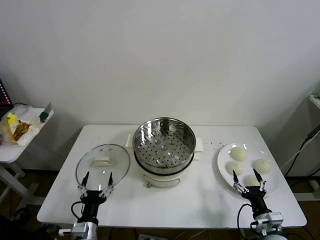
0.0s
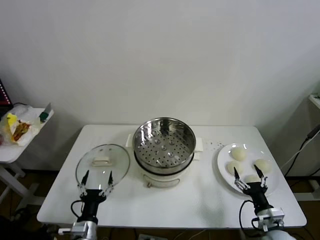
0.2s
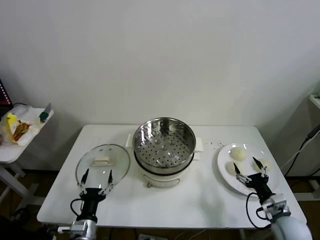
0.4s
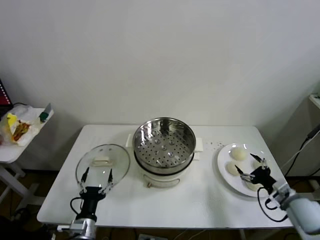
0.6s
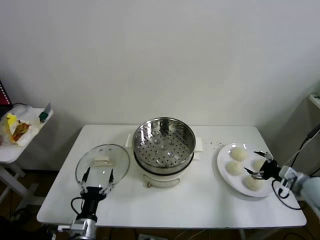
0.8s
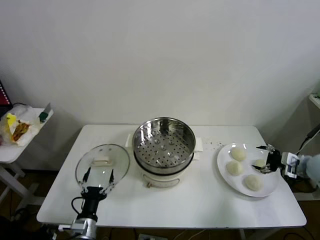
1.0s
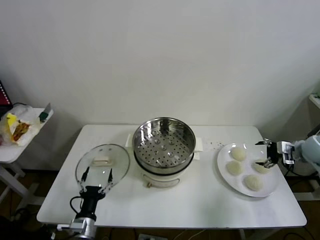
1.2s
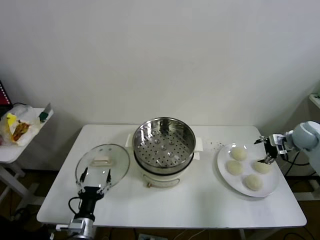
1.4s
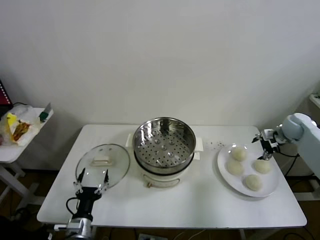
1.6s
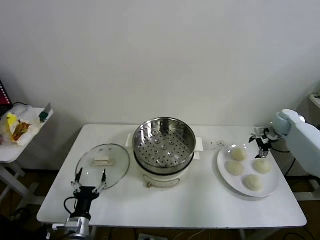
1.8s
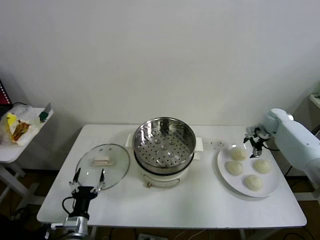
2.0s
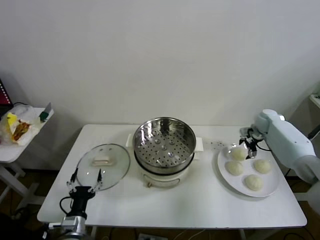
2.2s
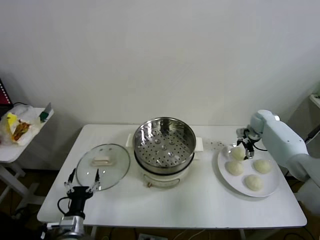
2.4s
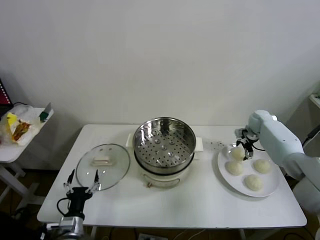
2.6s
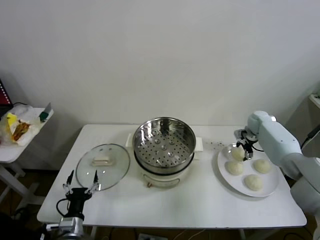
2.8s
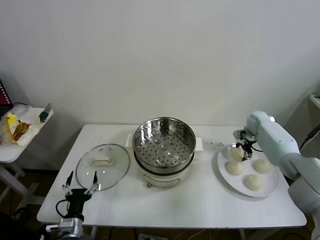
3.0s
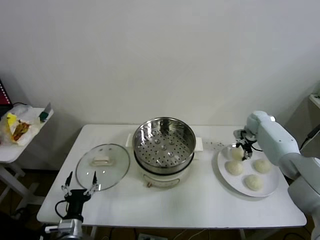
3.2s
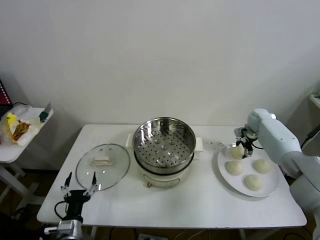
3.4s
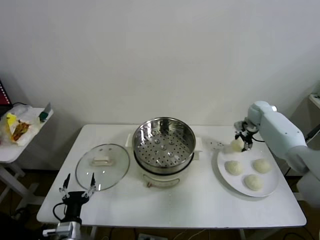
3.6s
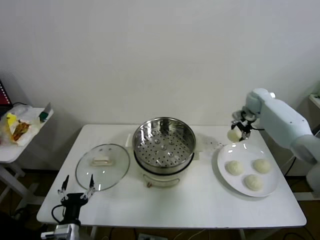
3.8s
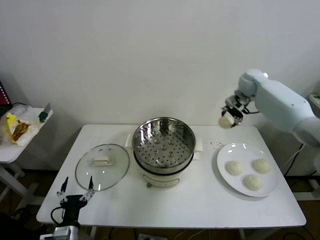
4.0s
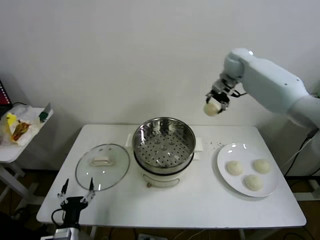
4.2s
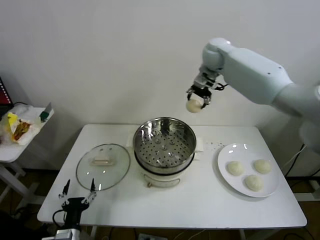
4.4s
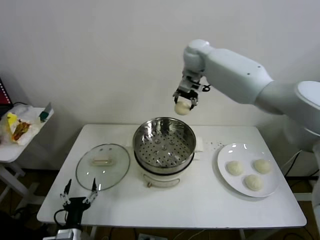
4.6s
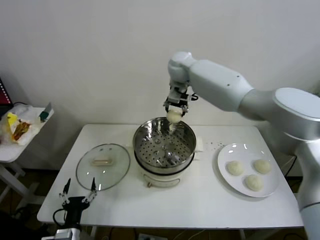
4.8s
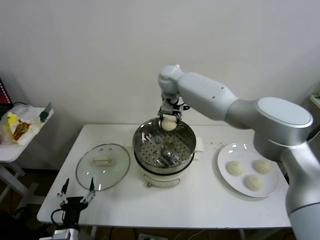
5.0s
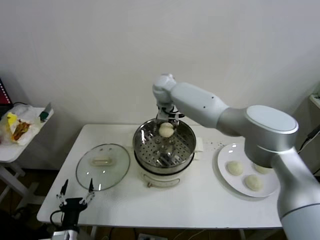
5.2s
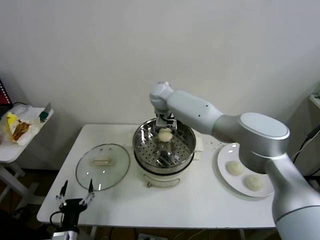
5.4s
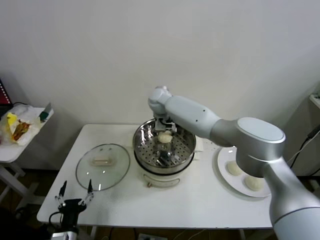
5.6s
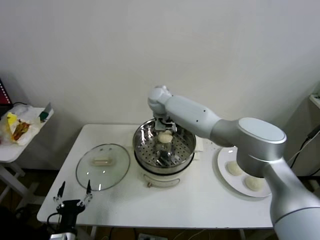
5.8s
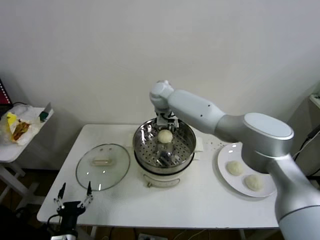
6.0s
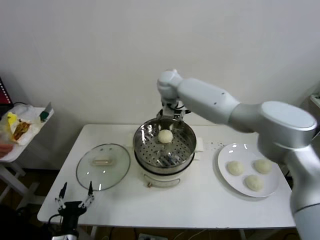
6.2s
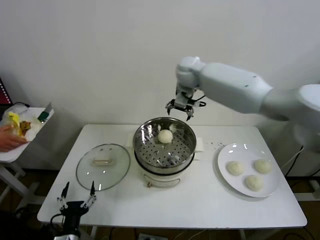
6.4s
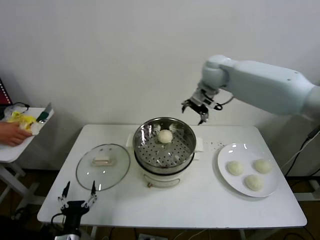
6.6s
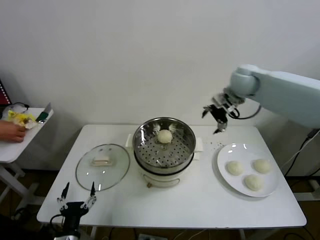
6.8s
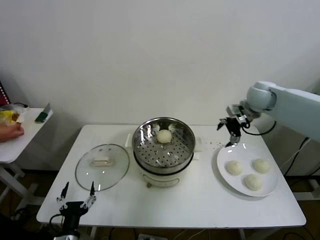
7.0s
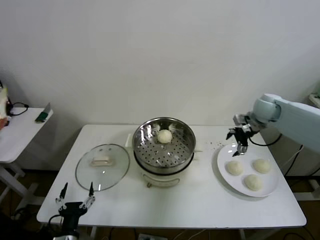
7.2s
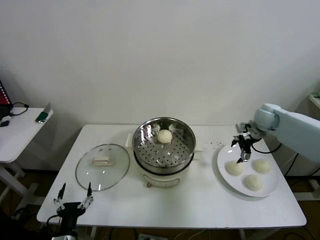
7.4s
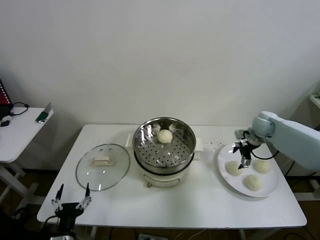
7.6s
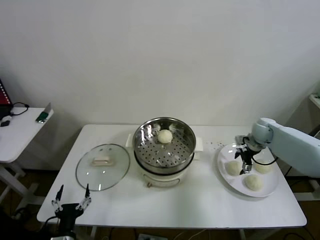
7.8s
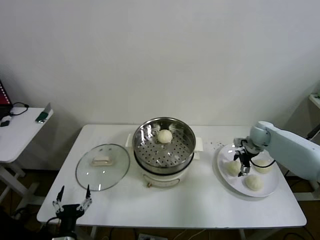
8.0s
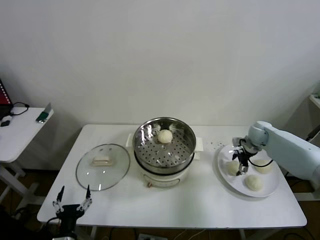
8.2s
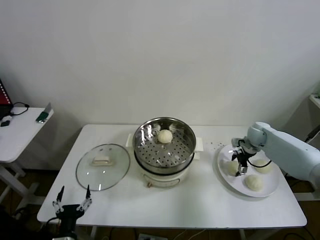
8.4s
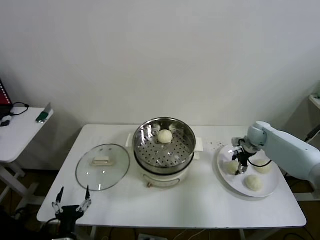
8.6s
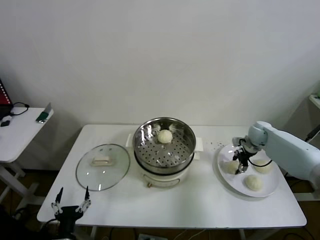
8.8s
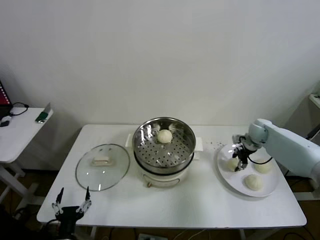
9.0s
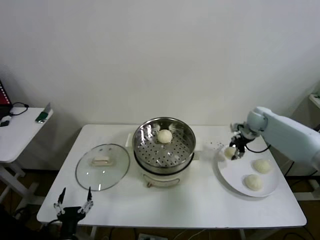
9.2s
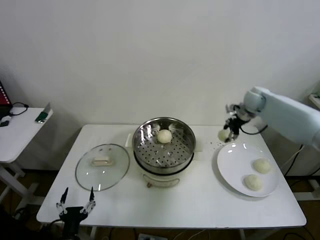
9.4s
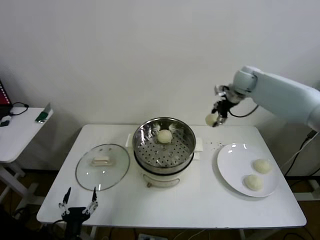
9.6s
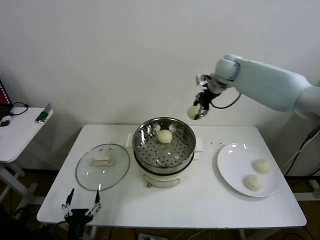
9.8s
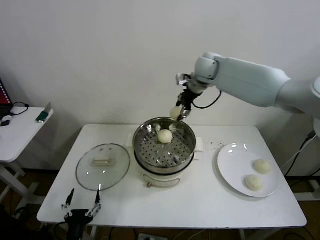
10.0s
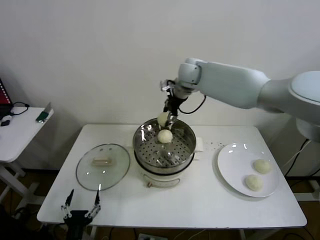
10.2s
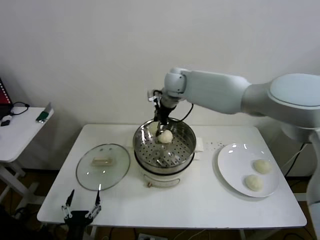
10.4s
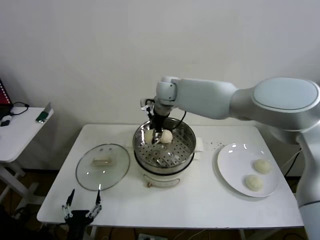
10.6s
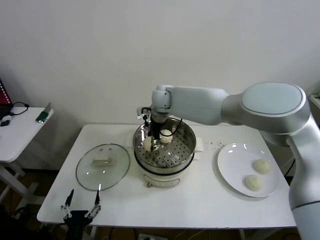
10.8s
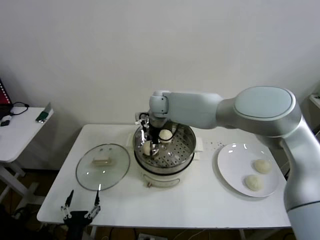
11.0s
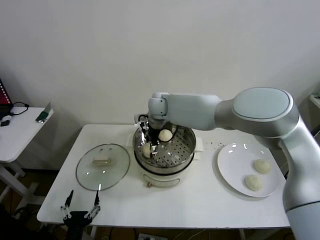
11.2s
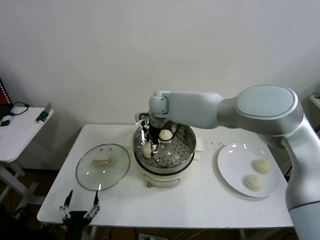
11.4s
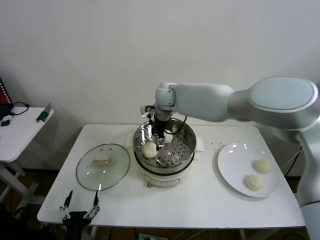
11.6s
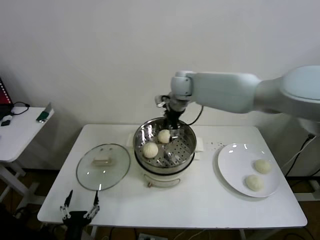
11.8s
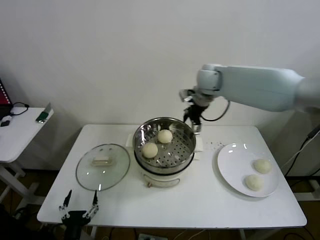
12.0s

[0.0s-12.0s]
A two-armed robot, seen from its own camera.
Step, 0.0s to 2.8s: Grasp the baozi in the plate with right gripper.
Step, 3.0s to 5.6s: Place the baozi on the steamer with right gripper.
Step, 5.8s to 8.6s: Grasp the baozi in the plate with right gripper.
Step, 8.8s to 11.0s: Place the baozi on the steamer with right gripper.
1.6s to 3.0s: The right gripper goes about 10 cm to the left, forward and downward, and closes.
3.0s to 4.4s: The right gripper goes about 40 cm upward and to the left.
4.4s to 6.0s: The right gripper travels to the left and downward by approximately 15 cm, and opens its fingers.
6.0s to 7.6s: The right gripper goes roughly 40 cm to the right.
7.6s to 9.0s: The right gripper closes its fingers.
9.0s to 10.4s: The right gripper travels to the left and upward by about 40 cm.
10.4s to 12.0s: The right gripper goes roughly 15 cm to the right, and opens.

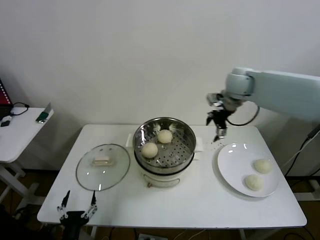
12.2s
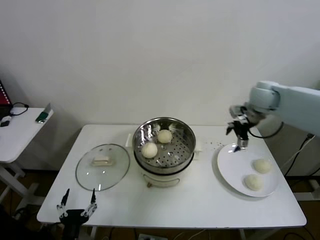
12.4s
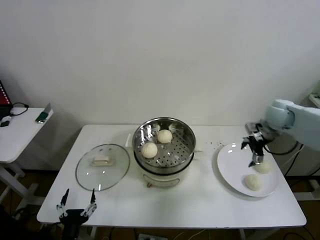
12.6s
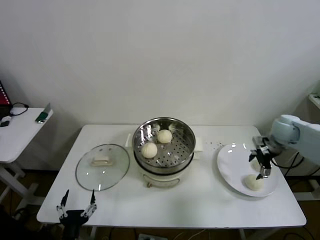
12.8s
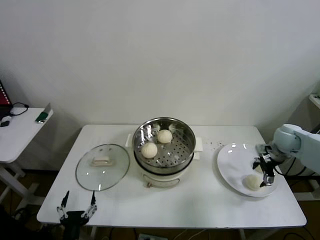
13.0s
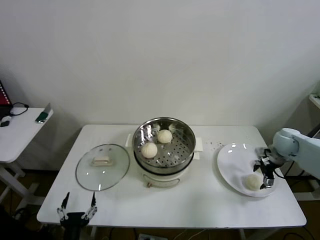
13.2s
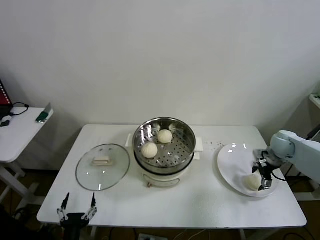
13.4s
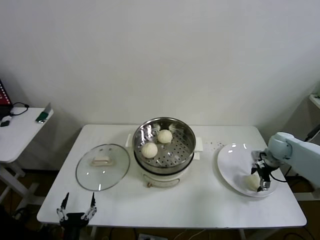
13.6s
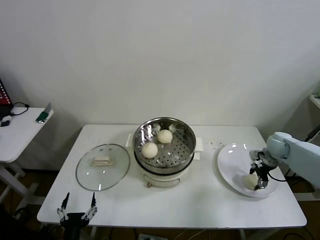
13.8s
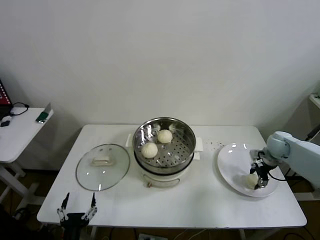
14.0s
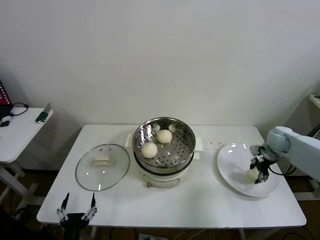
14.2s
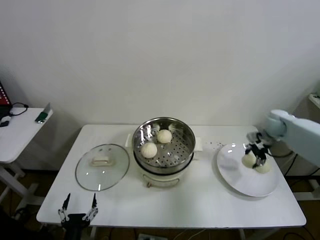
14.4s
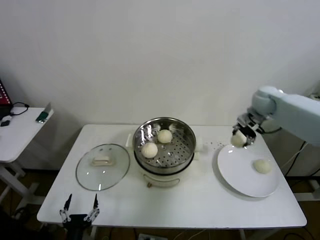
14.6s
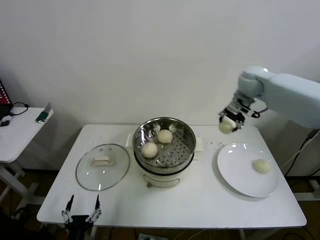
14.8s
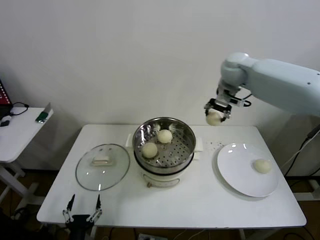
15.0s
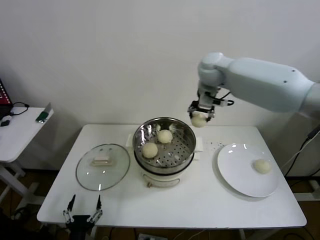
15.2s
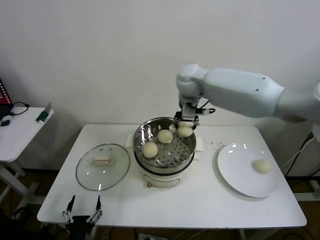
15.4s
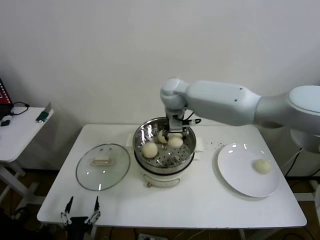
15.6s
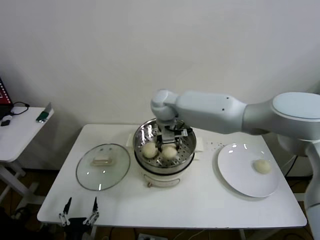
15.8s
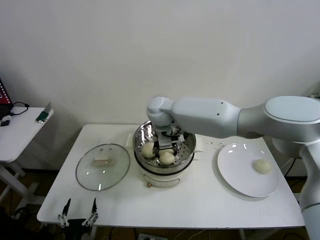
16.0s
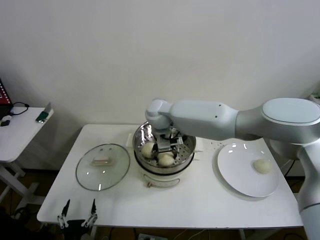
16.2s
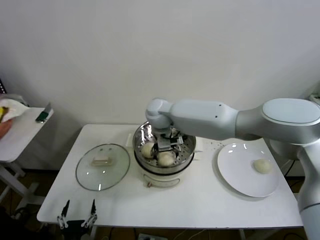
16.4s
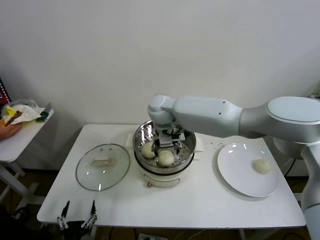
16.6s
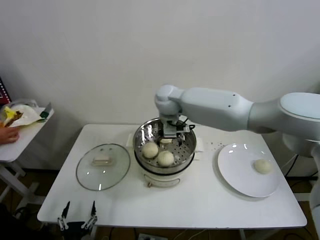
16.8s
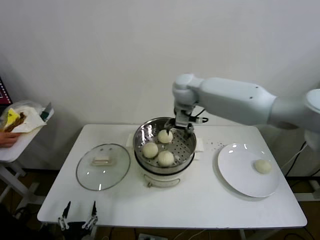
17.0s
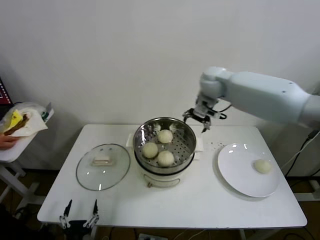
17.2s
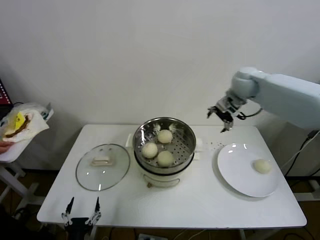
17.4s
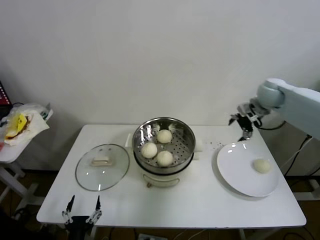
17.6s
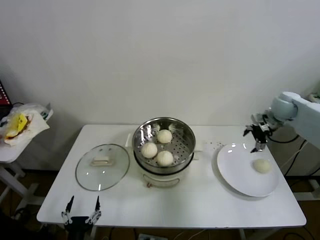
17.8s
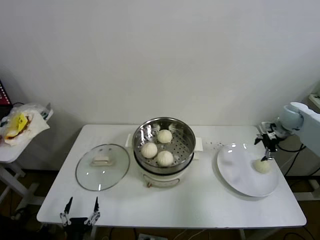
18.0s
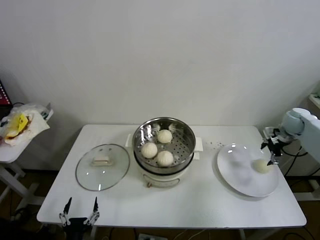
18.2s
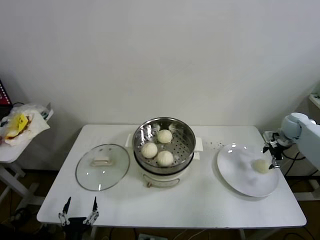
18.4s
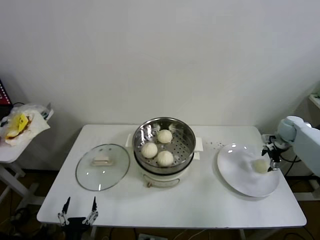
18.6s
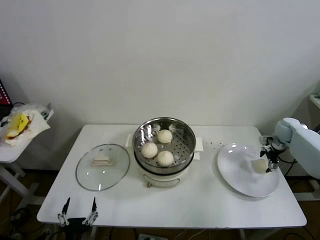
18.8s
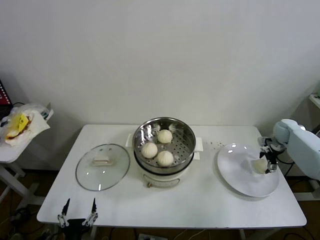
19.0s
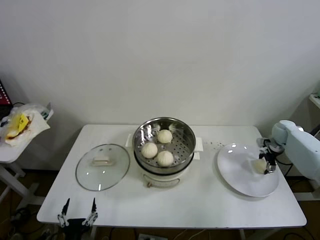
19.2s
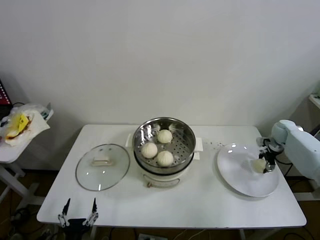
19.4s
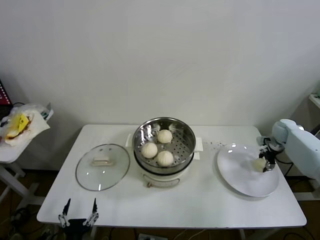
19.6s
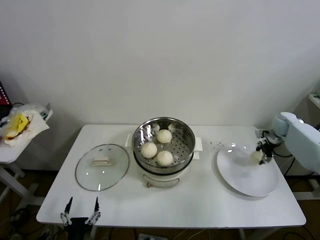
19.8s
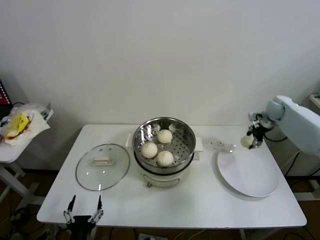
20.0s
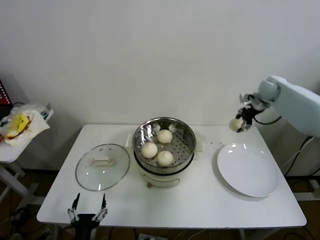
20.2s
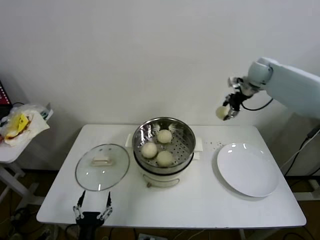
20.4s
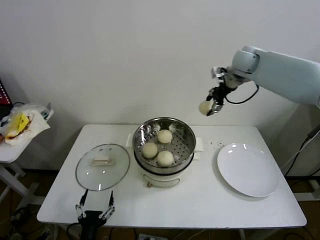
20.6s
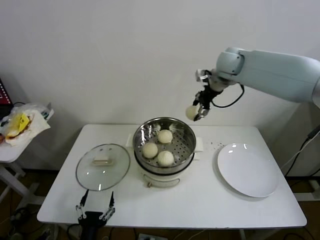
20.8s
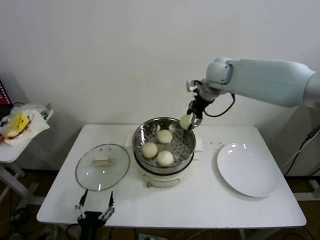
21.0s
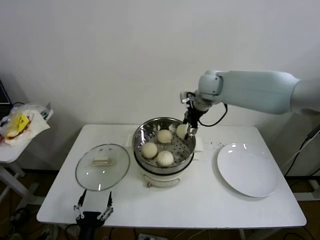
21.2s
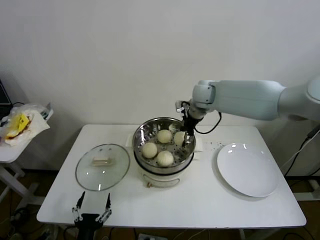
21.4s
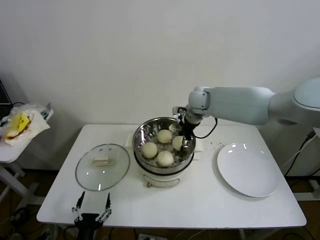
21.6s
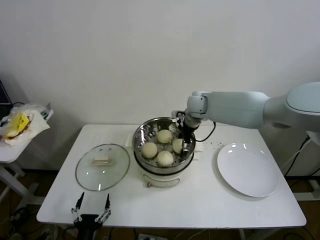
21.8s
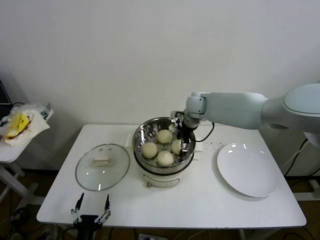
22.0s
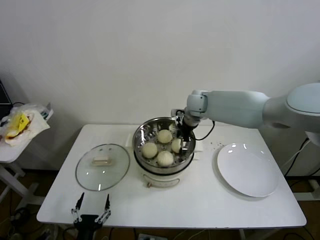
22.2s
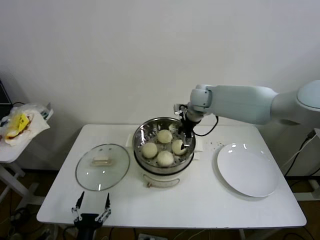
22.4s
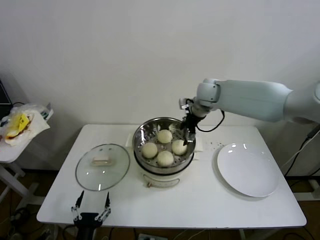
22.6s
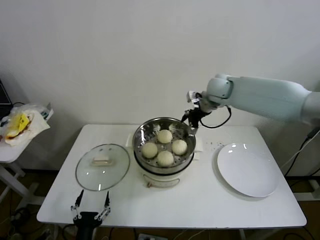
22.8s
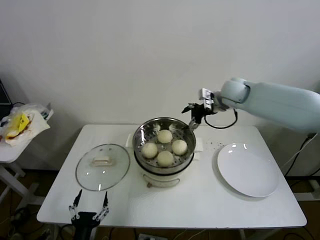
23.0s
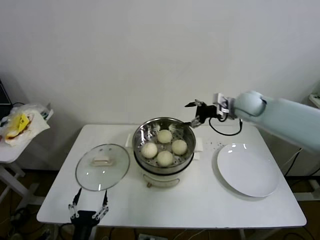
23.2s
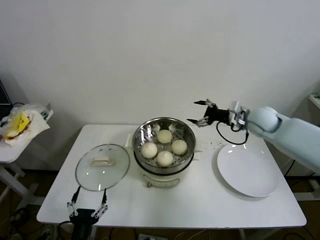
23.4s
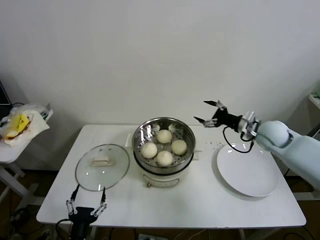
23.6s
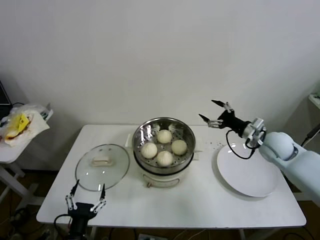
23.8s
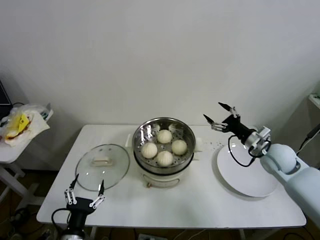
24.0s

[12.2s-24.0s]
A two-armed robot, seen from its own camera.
Step, 12.2s to 13.6s: Grasp the baozi in the plate with right gripper.
Step, 13.8s to 16.4s: Place the baozi on the steamer with right gripper.
Step, 16.6s to 19.0s: Grasp the baozi in the plate with right gripper.
Step, 19.4s to 21.8s: Place the baozi on the steamer with right gripper.
12.2s to 13.6s: The right gripper is displaced downward and to the right by roughly 25 cm.
13.6s to 15.2s: The right gripper shifts roughly 40 cm to the left and upward, and closes.
15.2s to 16.6s: The right gripper goes some 15 cm to the left and downward, and opens up.
16.6s to 18.2s: The right gripper moves to the right, roughly 50 cm.
18.2s to 19.6s: The right gripper is displaced downward by some 5 cm, and closes.
19.6s to 21.0s: The right gripper heads to the left and upward, covering about 40 cm.
21.0s to 22.6s: The right gripper is displaced downward by about 5 cm, and opens.
22.6s to 24.0s: The right gripper moves to the right, backward and downward, about 30 cm; the left gripper shifts by approximately 5 cm.
